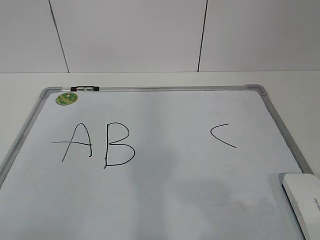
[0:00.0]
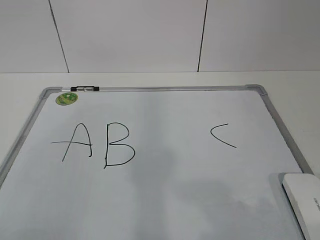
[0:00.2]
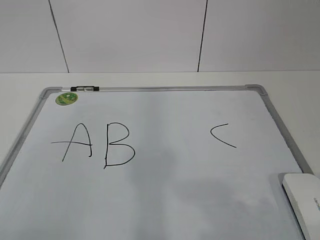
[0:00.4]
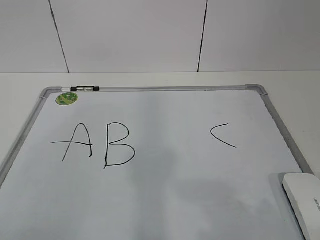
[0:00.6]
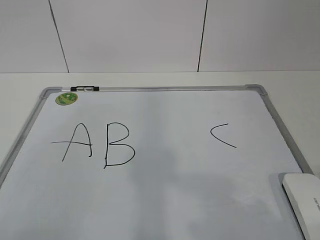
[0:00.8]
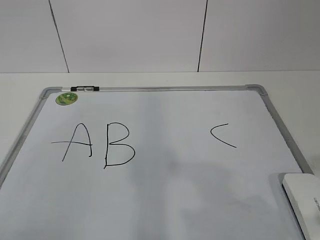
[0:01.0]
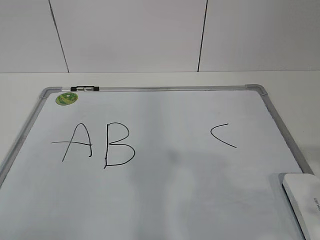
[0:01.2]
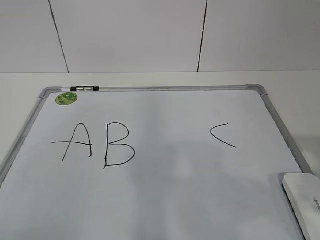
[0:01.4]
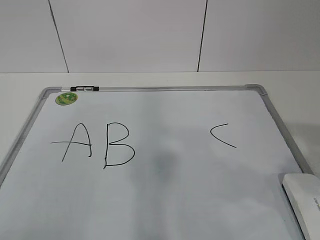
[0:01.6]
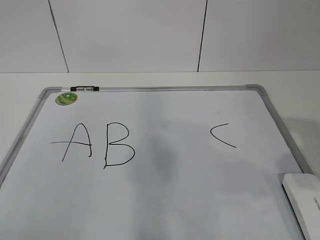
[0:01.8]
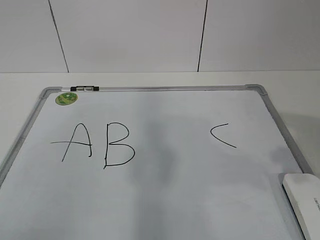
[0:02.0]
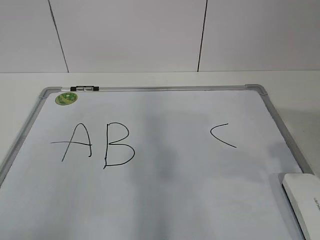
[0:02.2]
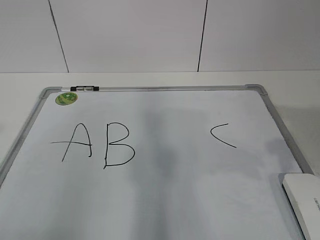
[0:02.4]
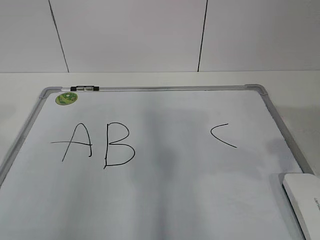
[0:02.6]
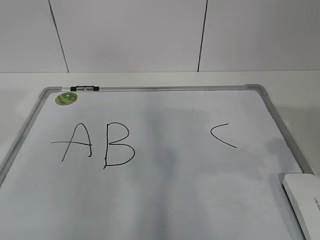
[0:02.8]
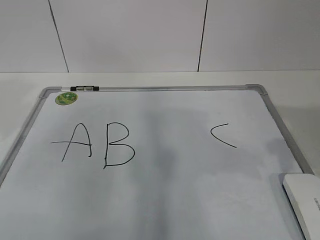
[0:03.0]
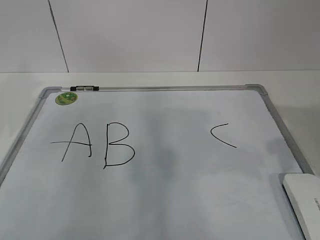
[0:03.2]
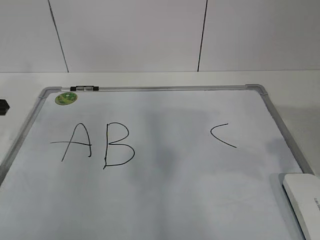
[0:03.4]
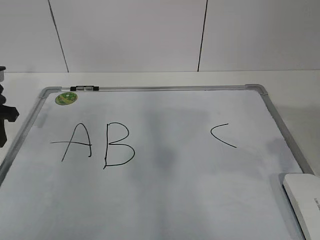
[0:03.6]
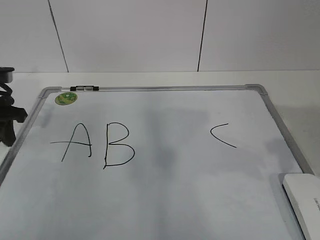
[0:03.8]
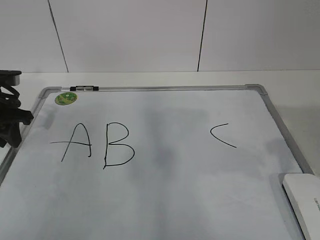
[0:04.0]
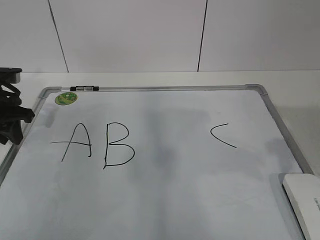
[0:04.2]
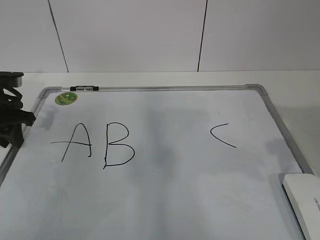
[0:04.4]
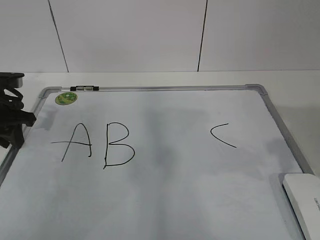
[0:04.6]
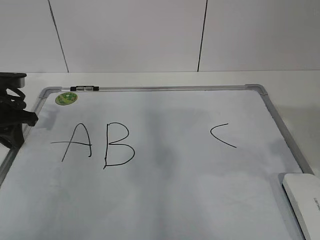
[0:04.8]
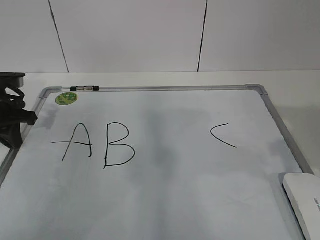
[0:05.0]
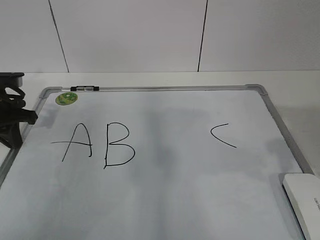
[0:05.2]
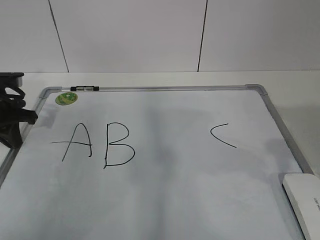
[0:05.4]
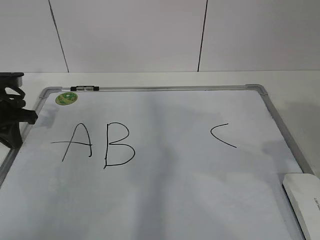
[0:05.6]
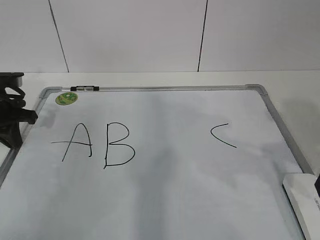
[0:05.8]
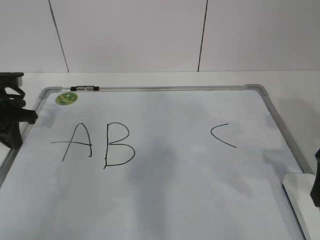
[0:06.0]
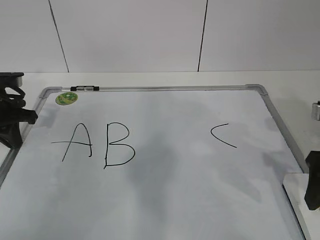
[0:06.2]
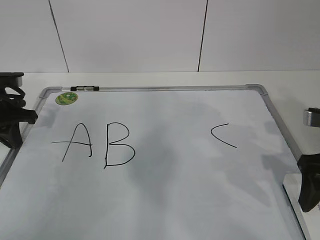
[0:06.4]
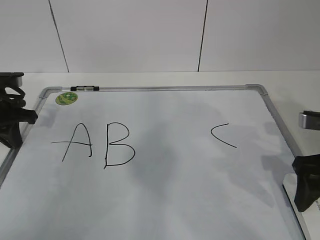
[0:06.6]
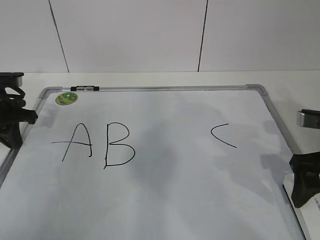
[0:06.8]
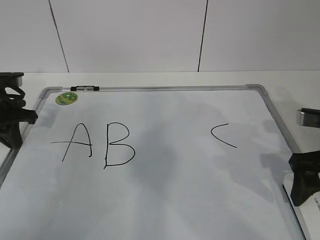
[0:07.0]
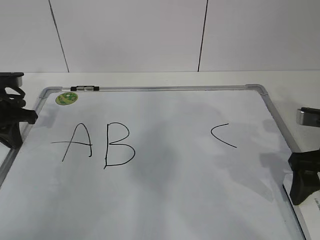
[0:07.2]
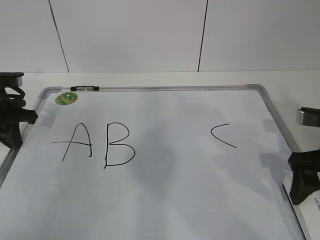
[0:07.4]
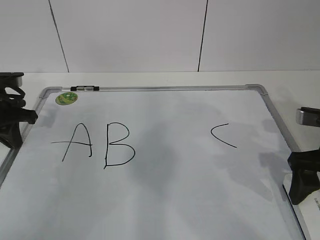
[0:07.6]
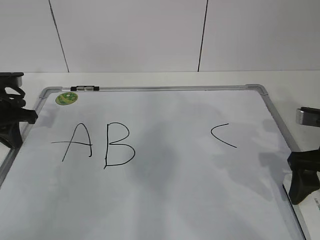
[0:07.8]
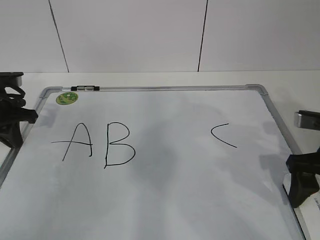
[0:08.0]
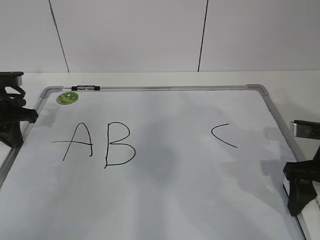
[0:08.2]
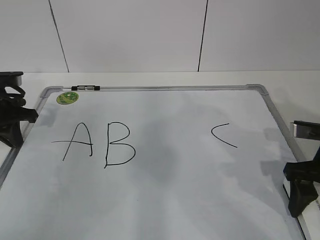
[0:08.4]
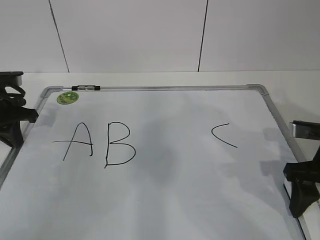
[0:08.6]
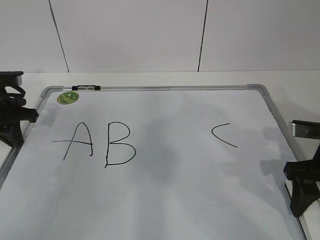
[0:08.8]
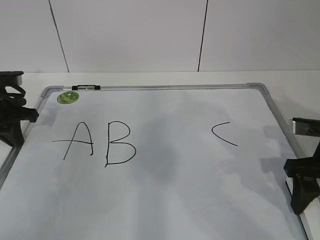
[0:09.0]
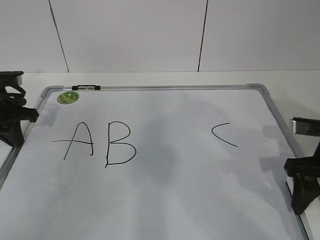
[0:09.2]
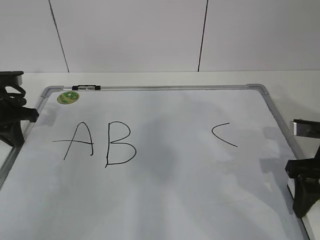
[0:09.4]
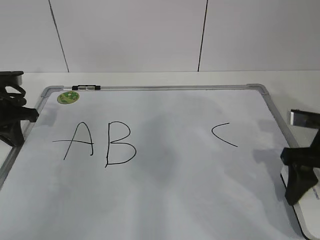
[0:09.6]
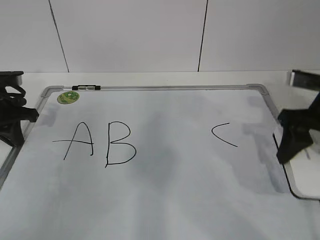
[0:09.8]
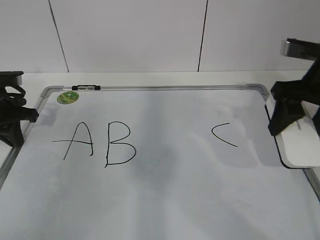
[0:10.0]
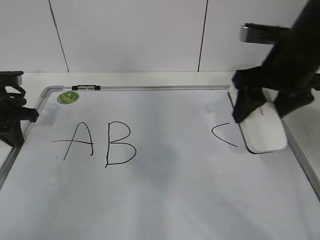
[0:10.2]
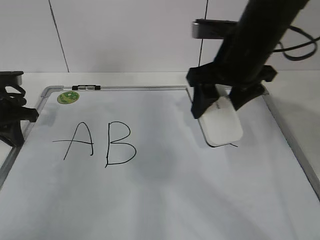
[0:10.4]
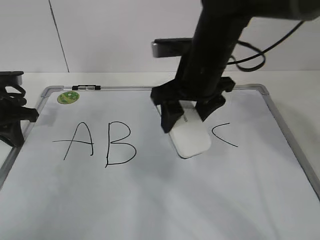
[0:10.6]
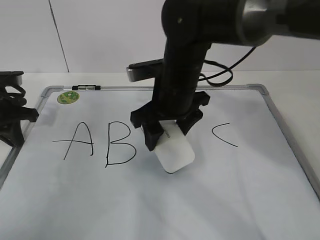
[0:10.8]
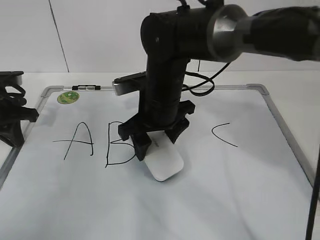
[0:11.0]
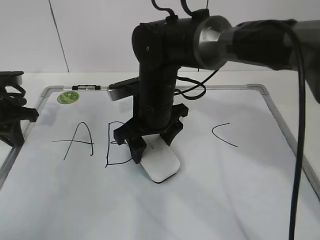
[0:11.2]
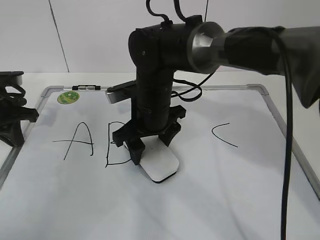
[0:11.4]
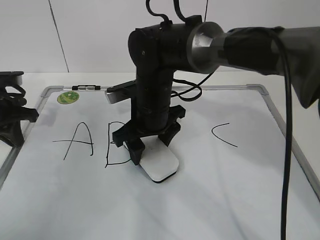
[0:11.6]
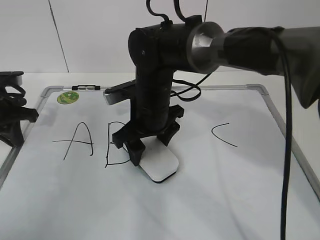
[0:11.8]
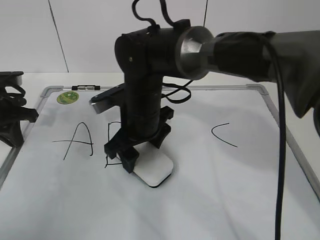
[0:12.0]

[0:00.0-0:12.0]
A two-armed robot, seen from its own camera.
Task of the whole recording: pick up the eraser on the blackboard and erase the letter "B".
Step, 0:00.0 to 0:04.0: Hold the drawing board steady with your left hand.
Step, 0:04.4 to 0:07.0: Grab the eraser with your right hand.
0:01.6 to 0:03.0: The left gripper moves forward, approximately 25 cm, while the right gripper travels forward by approximately 5 cm.
0:03.0 to 0:04.4: The left gripper shifts approximately 20 cm downward and forward.
0:04.4 to 0:06.0: The left gripper closes its fingers, while the right gripper heads downward and forward, covering roughly 10 cm.
0:06.0 to 0:07.6: The right gripper goes some 5 cm downward.
0:07.6 to 0:09.0: The right gripper closes its fingers.
0:09.0 to 0:10.4: The right gripper is displaced to the left, upward and forward by roughly 20 cm.
0:10.4 to 0:12.0: The right gripper heads to the left and downward, covering about 20 cm.

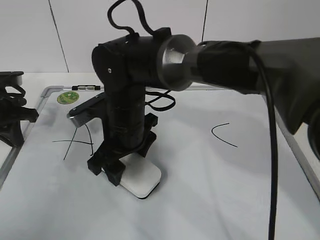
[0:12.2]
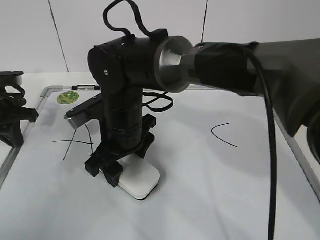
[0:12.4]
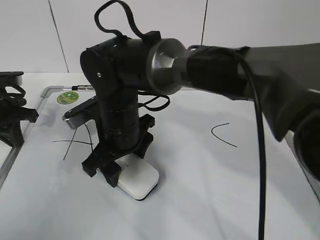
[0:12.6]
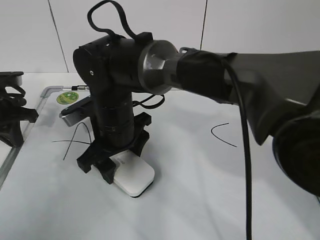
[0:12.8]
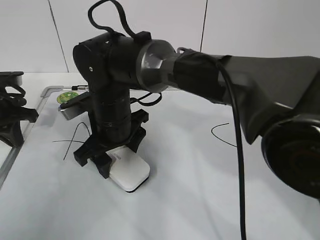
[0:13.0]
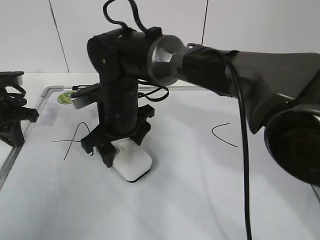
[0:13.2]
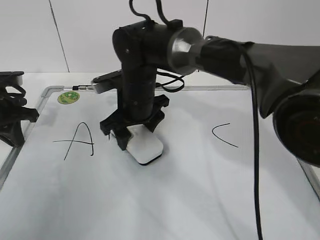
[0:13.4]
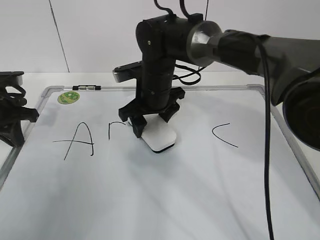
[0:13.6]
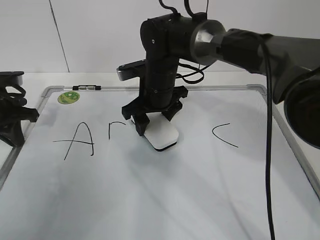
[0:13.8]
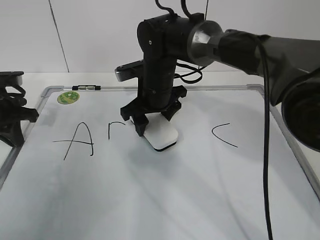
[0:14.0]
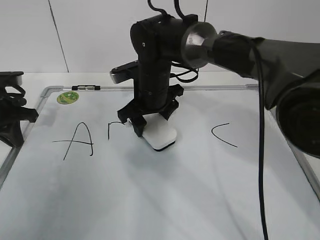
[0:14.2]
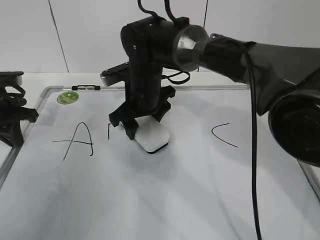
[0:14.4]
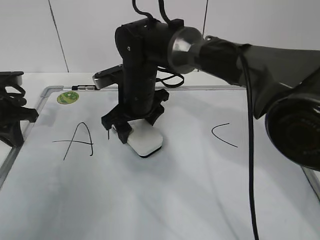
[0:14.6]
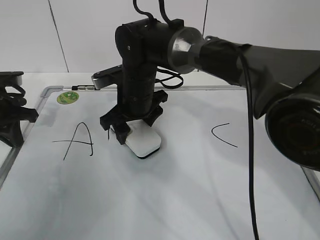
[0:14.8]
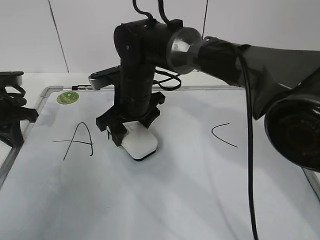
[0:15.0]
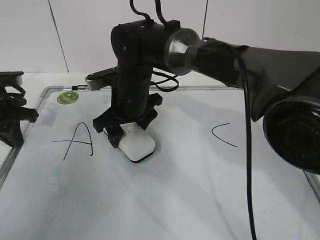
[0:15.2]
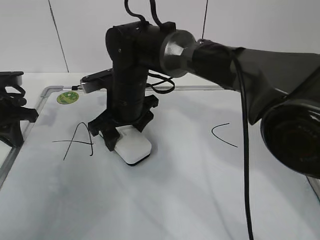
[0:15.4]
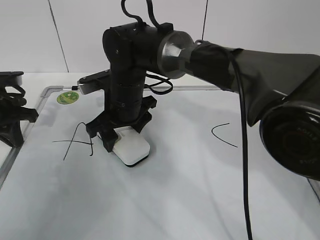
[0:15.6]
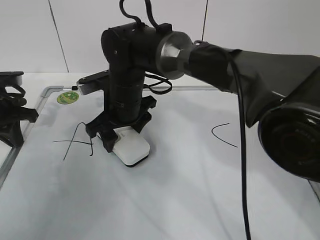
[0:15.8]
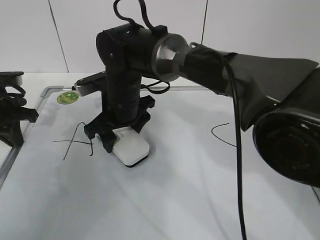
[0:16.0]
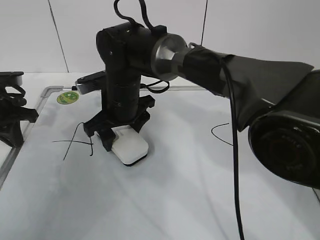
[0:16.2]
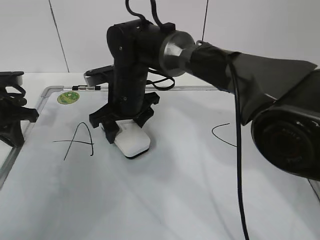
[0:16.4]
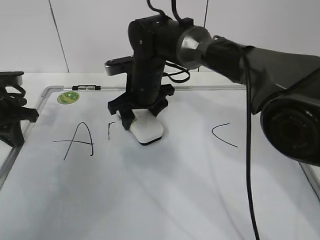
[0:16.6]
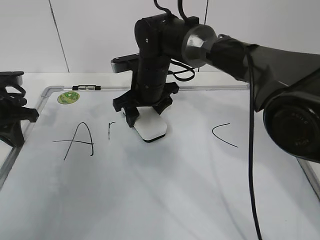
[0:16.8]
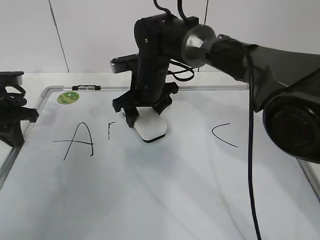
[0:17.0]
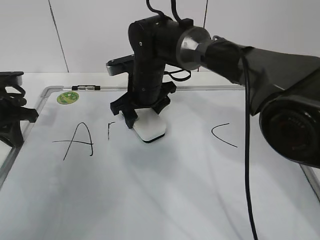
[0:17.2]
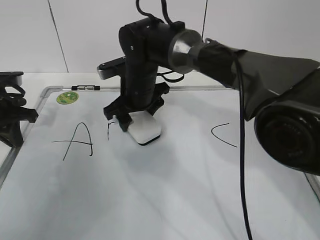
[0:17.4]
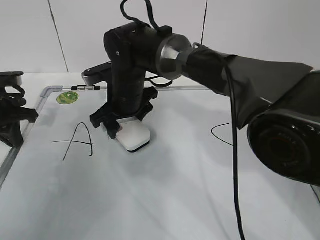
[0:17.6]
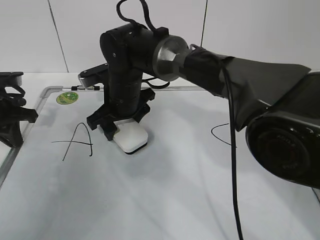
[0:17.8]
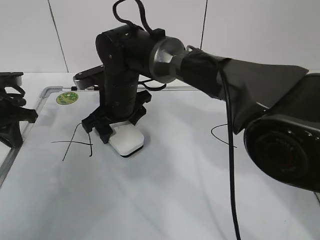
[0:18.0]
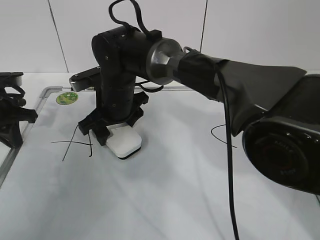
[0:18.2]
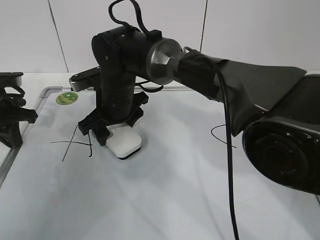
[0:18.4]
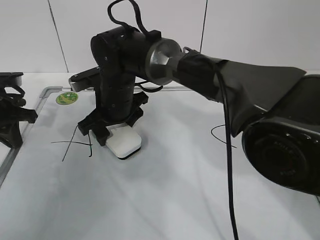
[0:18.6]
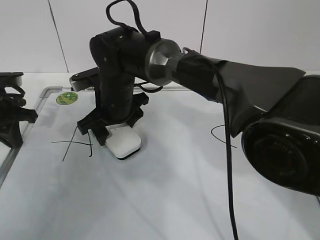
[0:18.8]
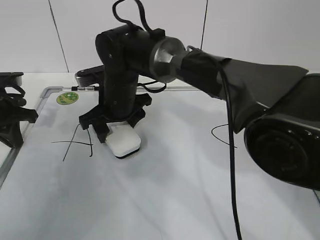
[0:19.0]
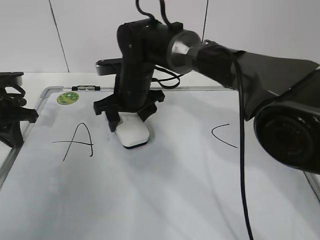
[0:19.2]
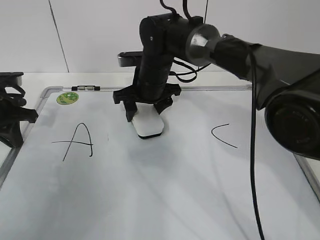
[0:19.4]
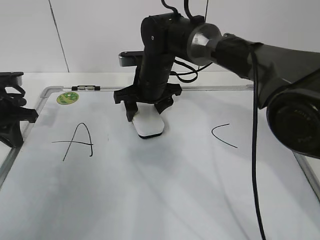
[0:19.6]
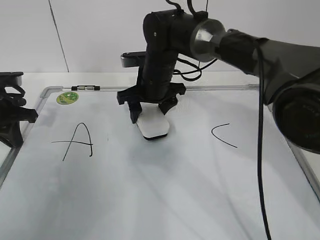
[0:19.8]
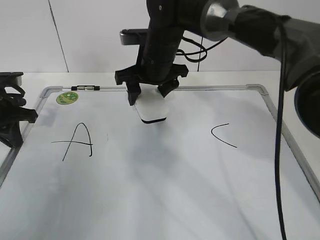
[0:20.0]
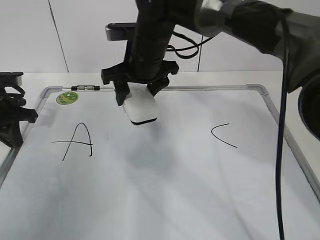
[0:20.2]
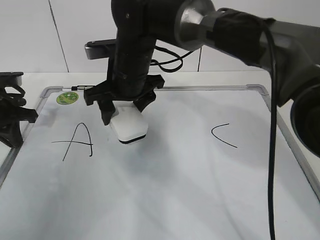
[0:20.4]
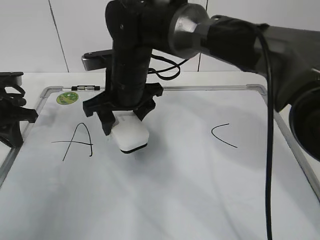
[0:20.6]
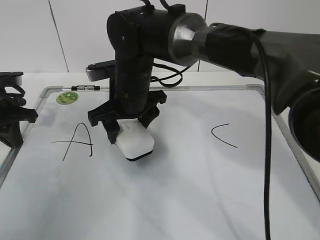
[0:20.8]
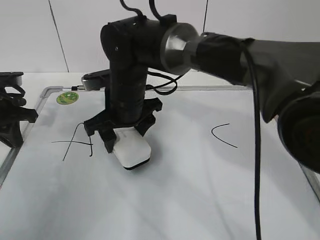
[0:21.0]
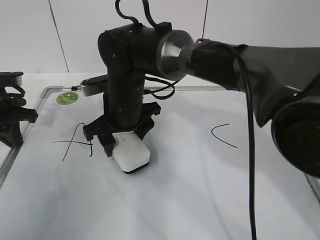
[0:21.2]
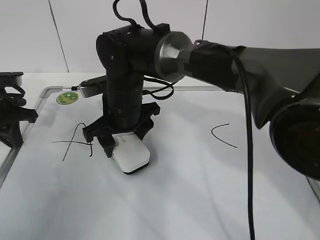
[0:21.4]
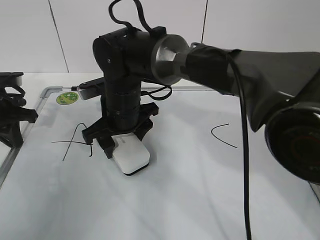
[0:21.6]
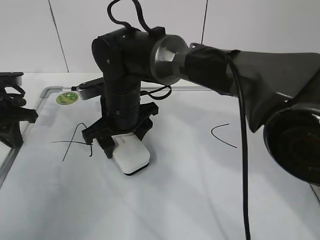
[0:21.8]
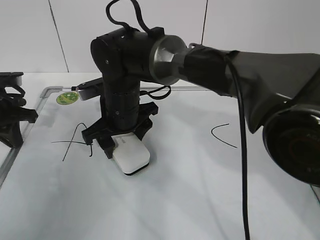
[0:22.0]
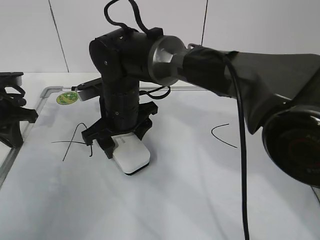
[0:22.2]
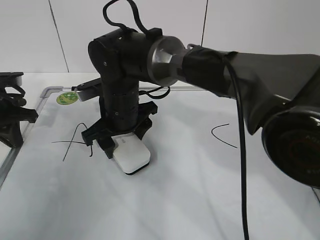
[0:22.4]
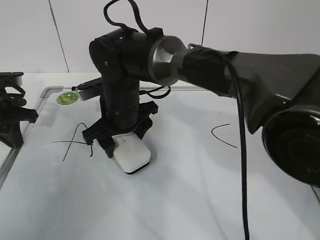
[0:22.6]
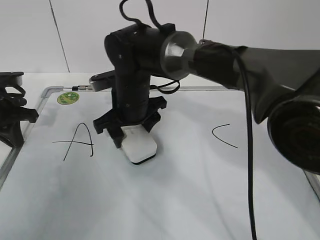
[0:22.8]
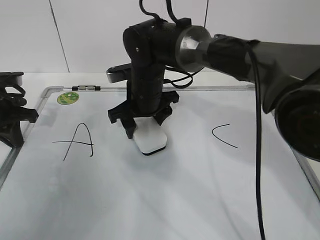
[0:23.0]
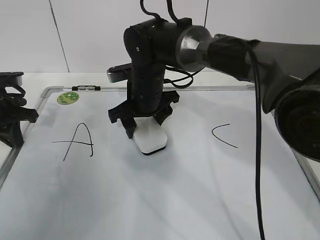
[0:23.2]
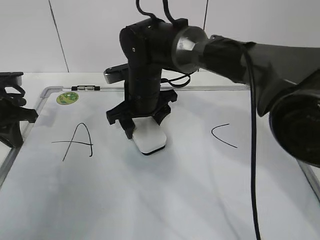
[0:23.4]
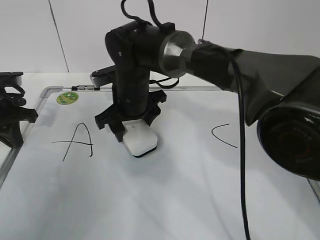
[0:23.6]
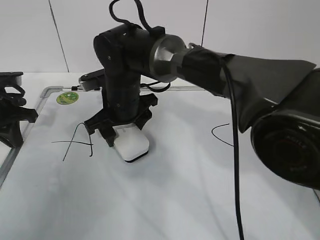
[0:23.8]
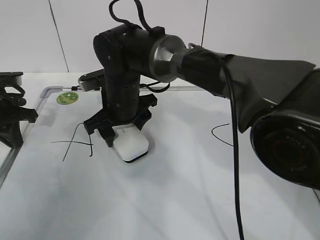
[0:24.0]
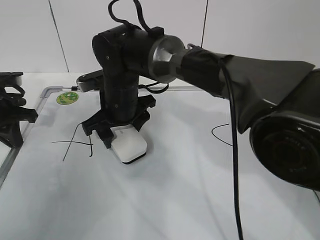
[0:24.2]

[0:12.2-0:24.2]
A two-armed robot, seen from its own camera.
Task of the whole recording: pick up the eraser on the blackboard and erase the letter "B".
Step, 0:12.2 to 0:21.4: Erase the letter B with your right hand.
0:12.2 to 0:13.8: The right gripper heads forward and to the right, covering some 10 cm.
0:13.8 to 0:15.2: The right gripper travels to the left by approximately 5 cm.
0:15.2 to 0:16.6: The right gripper moves roughly 5 cm.
0:16.6 to 0:18.2: The right gripper moves to the left, roughly 5 cm.
0:18.2 to 0:19.8: The right gripper goes roughly 10 cm to the right and forward.
0:19.8 to 0:21.2: The right gripper is displaced backward and to the left by about 10 cm.
0:21.2 to 0:24.2: There are only small adjustments of the grippers.
